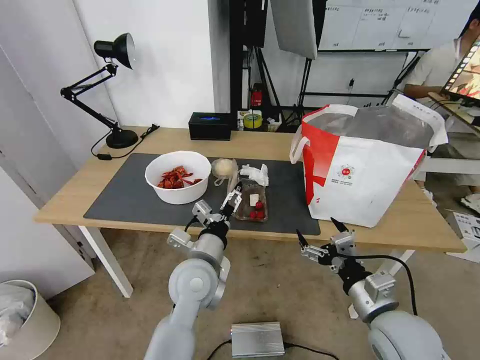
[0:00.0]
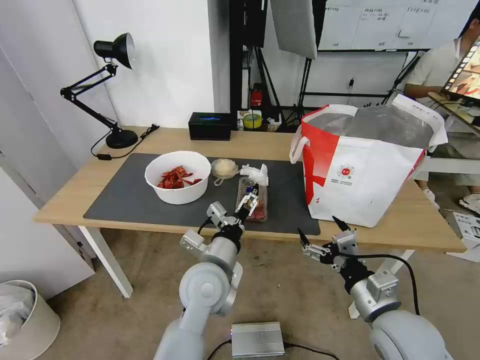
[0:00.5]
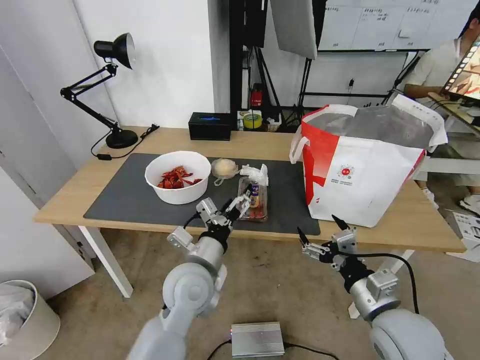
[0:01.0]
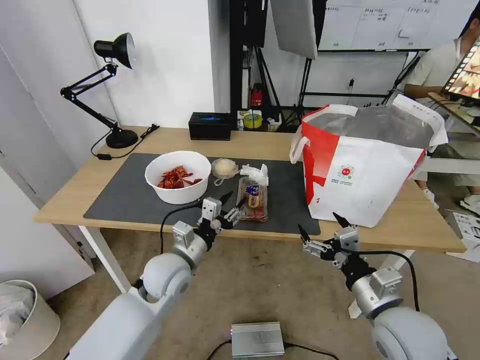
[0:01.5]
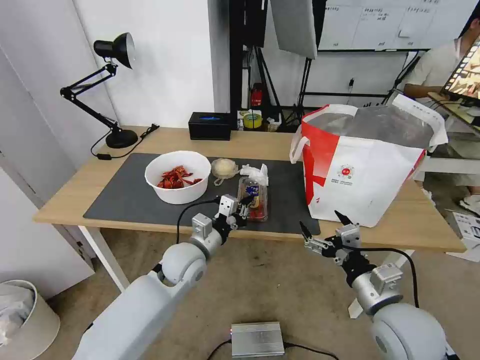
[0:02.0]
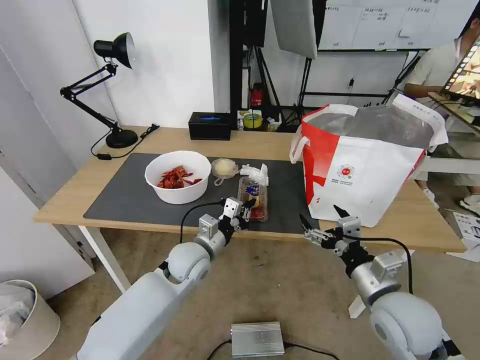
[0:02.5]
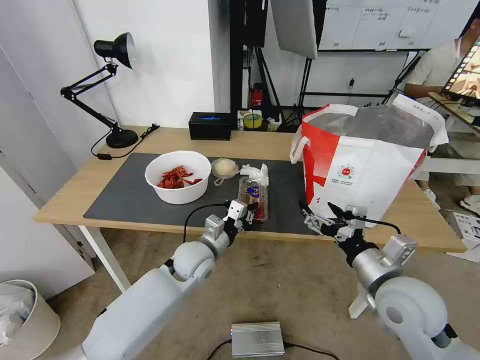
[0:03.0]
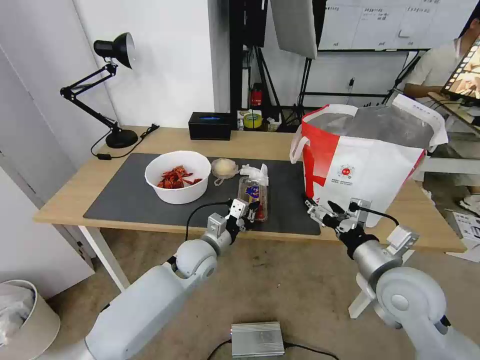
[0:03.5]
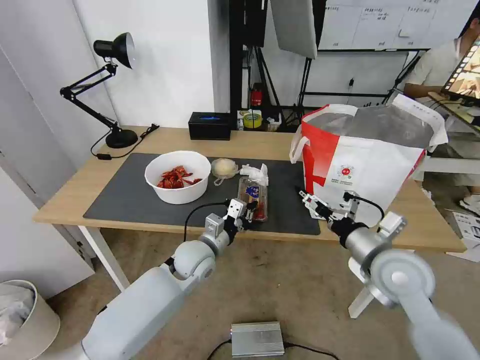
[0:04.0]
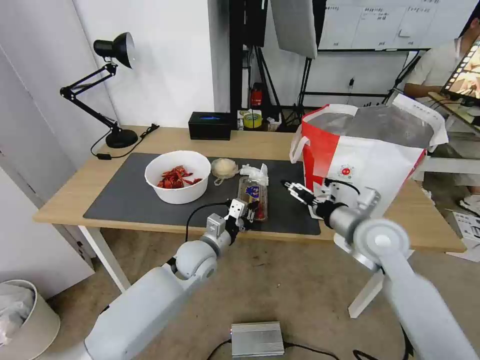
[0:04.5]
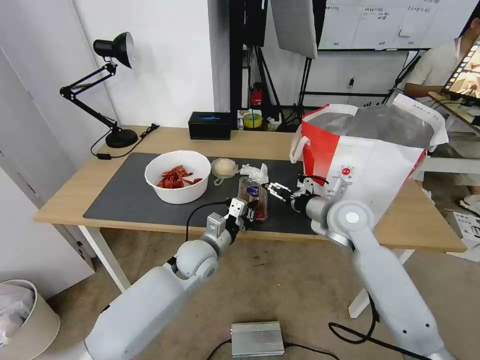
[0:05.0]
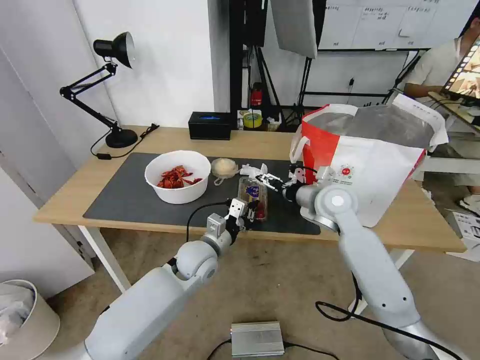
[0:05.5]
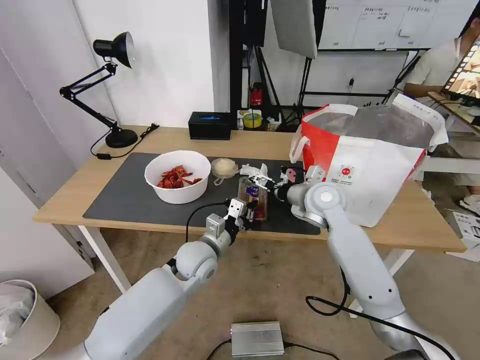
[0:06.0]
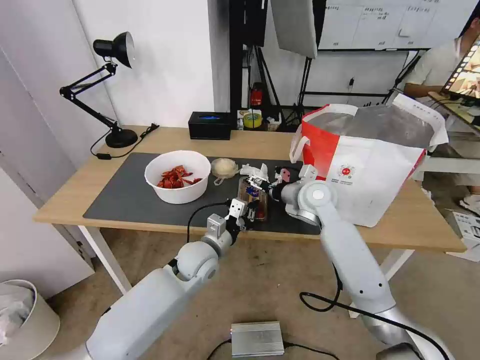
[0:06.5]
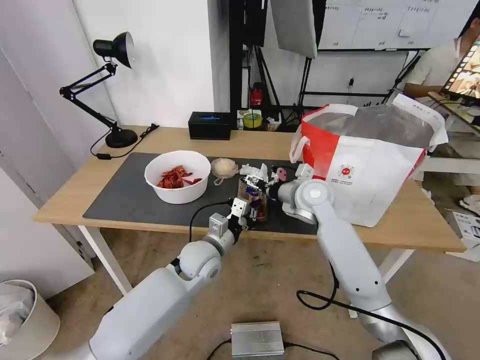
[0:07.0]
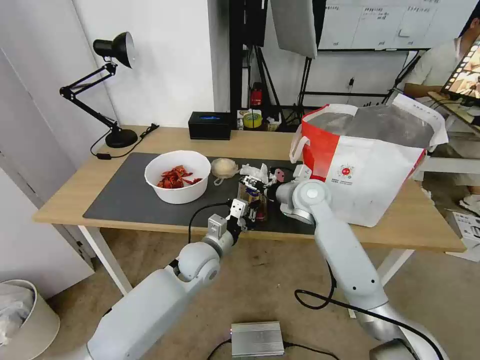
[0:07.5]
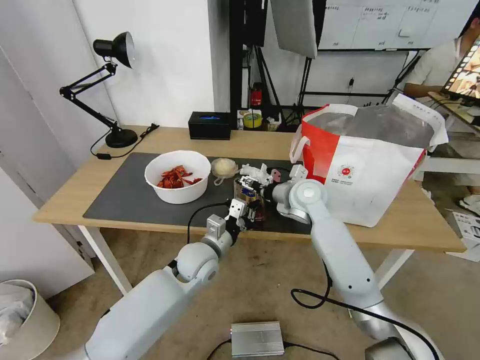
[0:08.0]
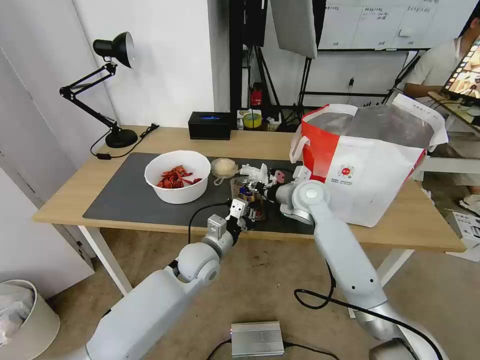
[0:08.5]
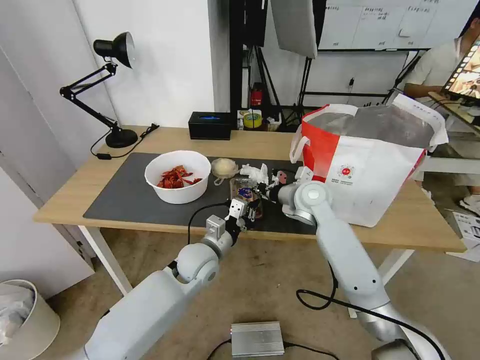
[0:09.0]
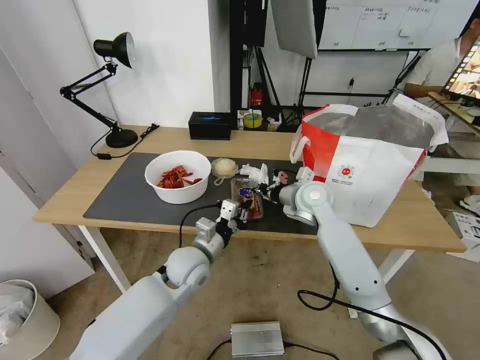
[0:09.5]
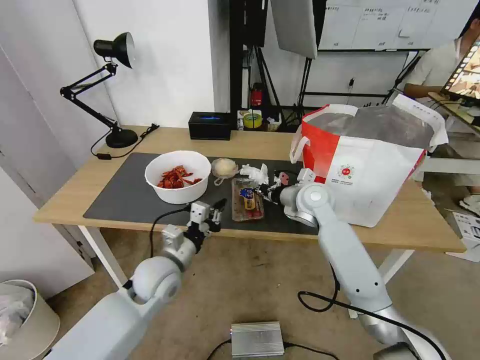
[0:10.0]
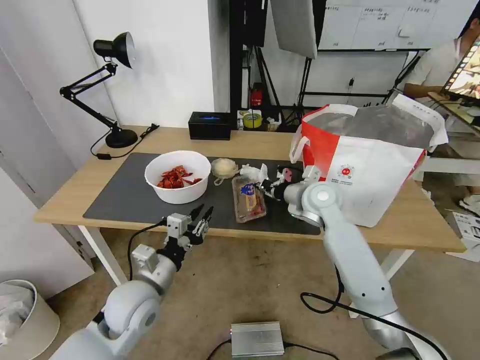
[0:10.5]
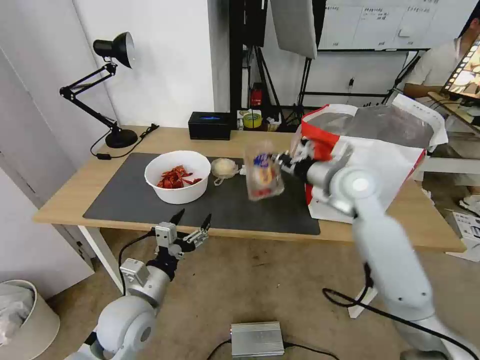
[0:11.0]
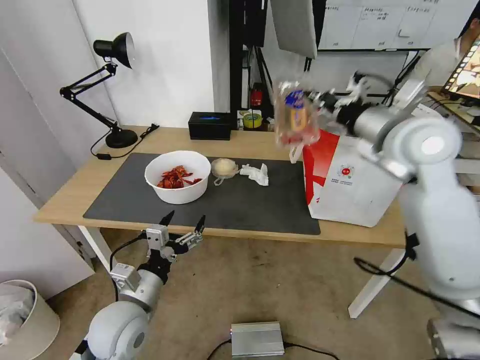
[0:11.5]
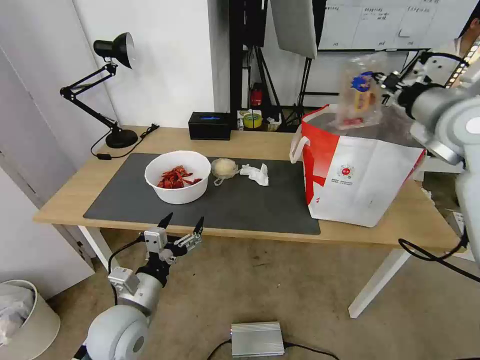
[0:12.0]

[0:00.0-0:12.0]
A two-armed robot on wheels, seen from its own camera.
Task of the whole recording: Pick up the trash from the table and place it into the takeout bag.
0:00.0 to 0:02.0: The left gripper moves forward, some 5 cm, and closes.
0:02.0 to 0:04.0: The right gripper moves forward, roughly 10 cm.
0:04.0 to 0:06.0: The right gripper travels forward and to the left by about 20 cm.
0:06.0 to 0:08.0: The grippers move only a little.
0:08.0 to 0:10.0: The right gripper closes; the left gripper shifts roughly 10 cm to the left and backward.
0:10.0 to 0:12.0: The right gripper is displaced upward and to the right by roughly 30 cm, while the left gripper moves backward, roughly 10 cm, and opens up.

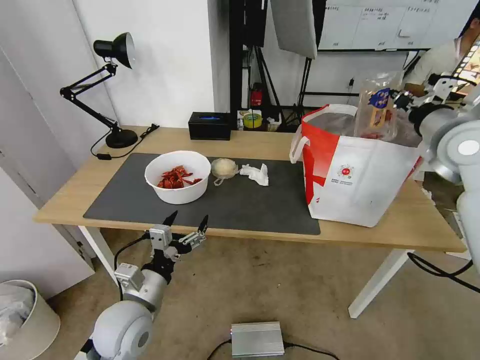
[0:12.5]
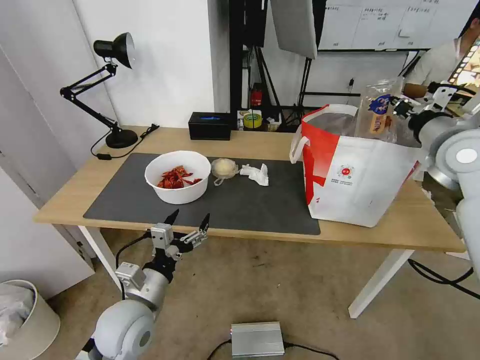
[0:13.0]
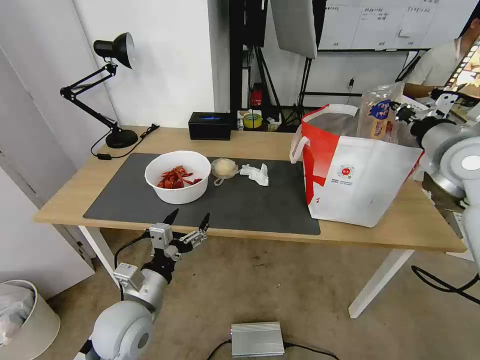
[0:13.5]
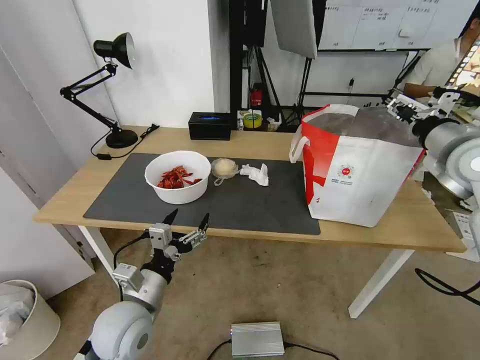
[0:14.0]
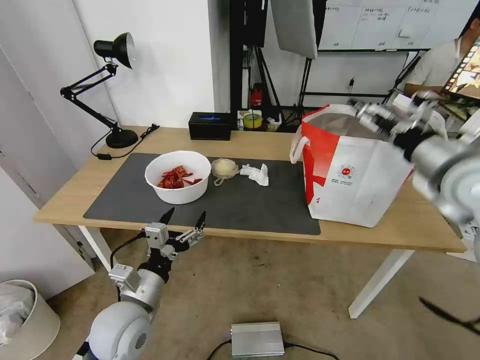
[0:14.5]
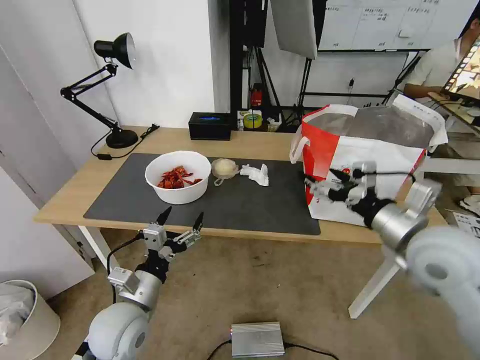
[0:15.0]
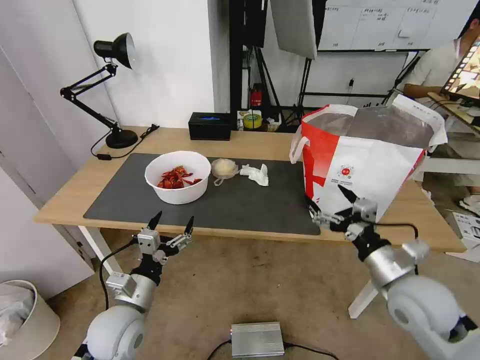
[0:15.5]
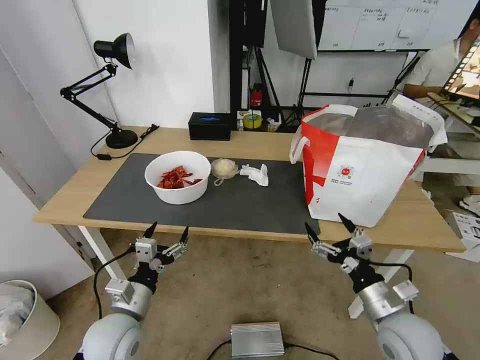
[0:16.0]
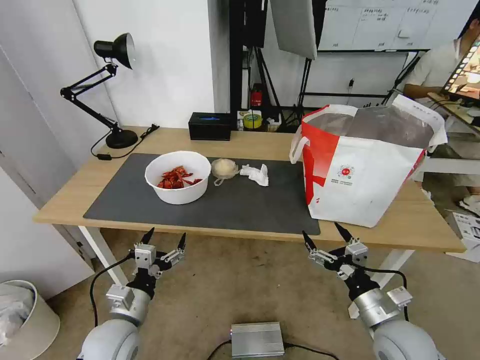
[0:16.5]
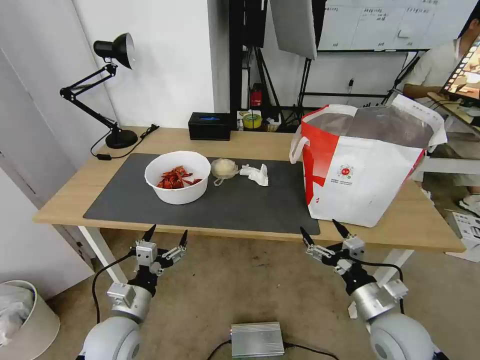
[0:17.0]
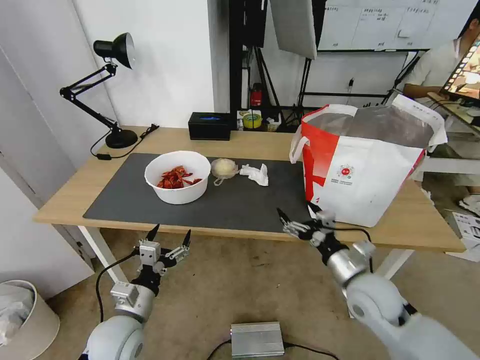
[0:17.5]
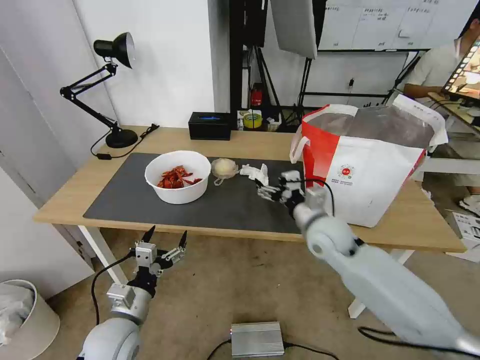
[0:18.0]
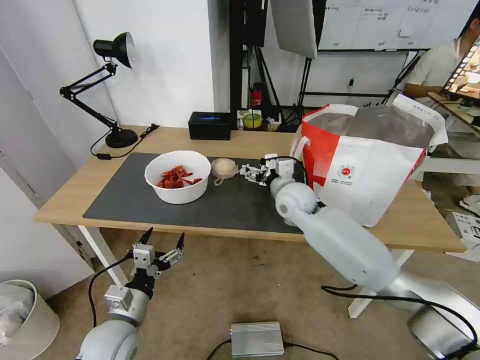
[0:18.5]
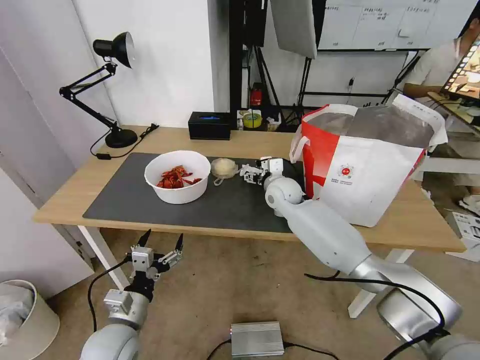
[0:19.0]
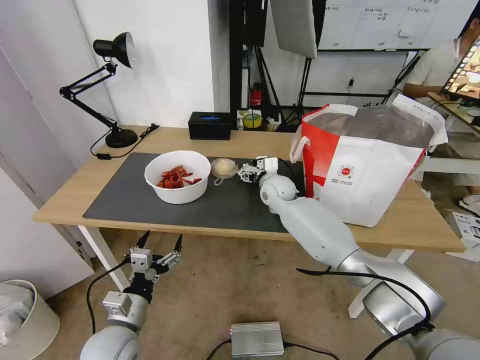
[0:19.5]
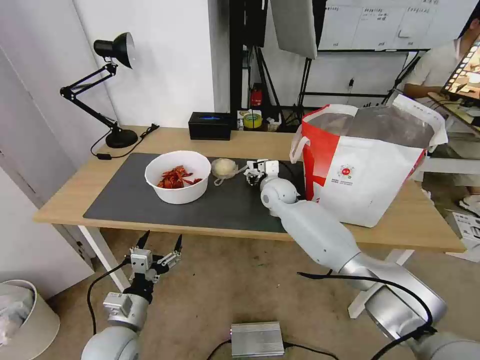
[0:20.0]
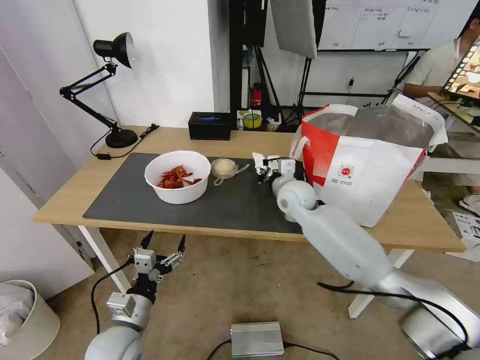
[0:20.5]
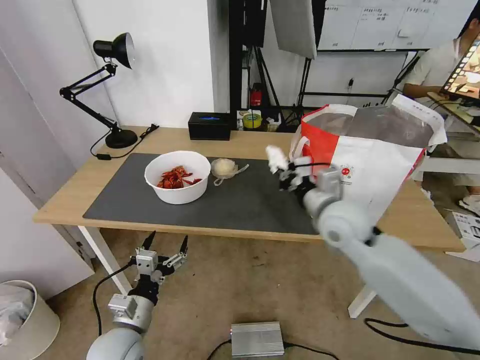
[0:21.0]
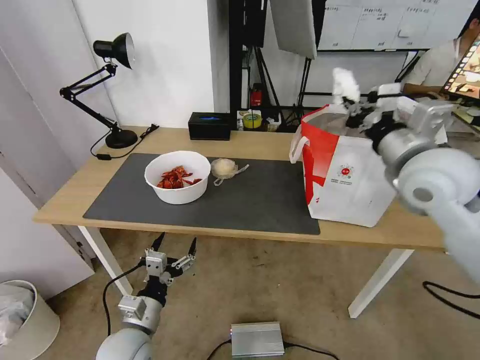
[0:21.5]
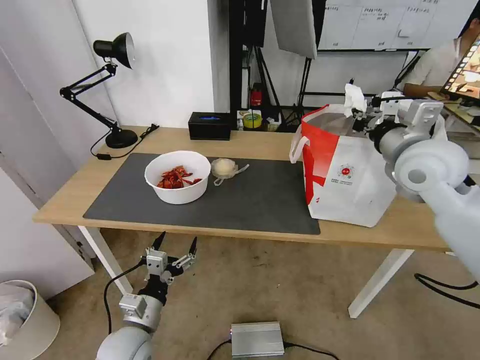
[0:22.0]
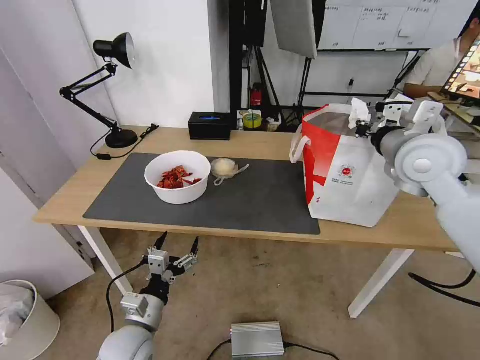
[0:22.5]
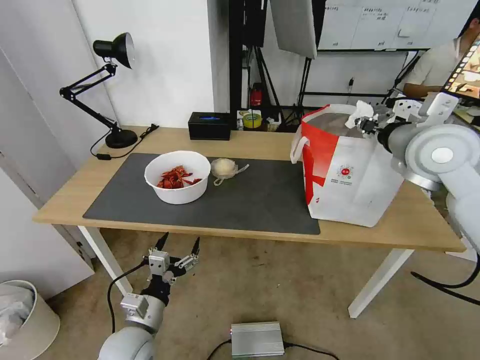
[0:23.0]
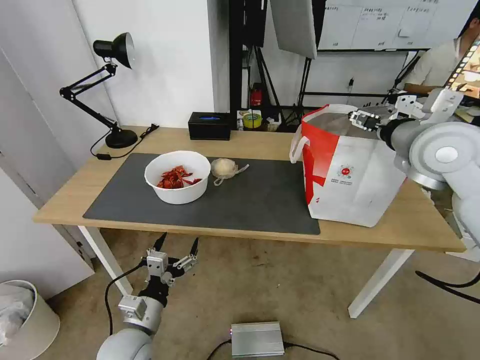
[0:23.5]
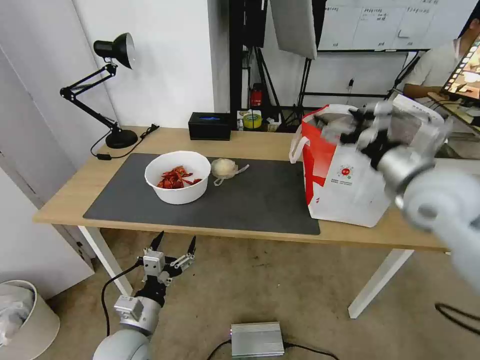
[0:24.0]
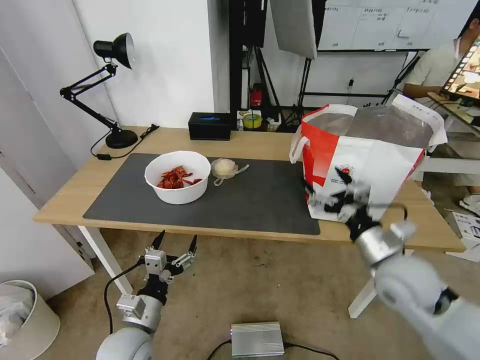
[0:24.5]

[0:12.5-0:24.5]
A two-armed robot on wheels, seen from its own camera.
Task of the whole recording: Pick up the trash from the table and place it into the takeout bag.
0:12.5 to 0:14.5: The right gripper shifts approximately 5 cm backward, and opens.
0:14.5 to 0:16.5: The left gripper is displaced downward by approximately 5 cm. The right gripper goes approximately 30 cm downward and backward.
0:16.5 to 0:18.5: The right gripper is displaced forward and to the left by roughly 35 cm.
0:18.5 to 0:20.5: The right gripper closes its fingers.
0:20.5 to 0:22.5: The right gripper is displaced upward, to the right and backward by roughly 30 cm.
0:22.5 to 0:24.5: The right gripper goes roughly 20 cm downward and backward, and opens up.

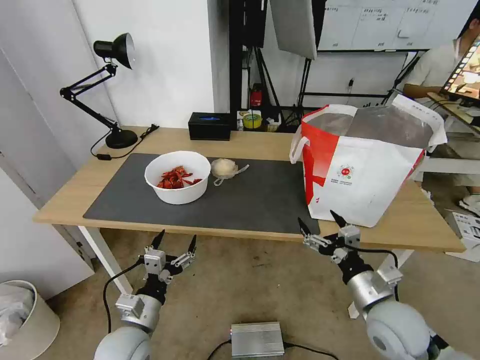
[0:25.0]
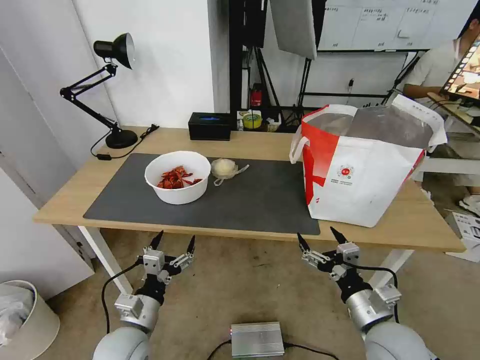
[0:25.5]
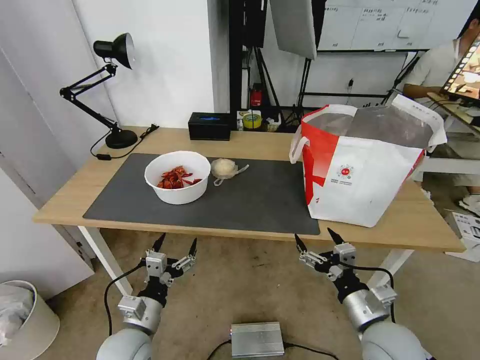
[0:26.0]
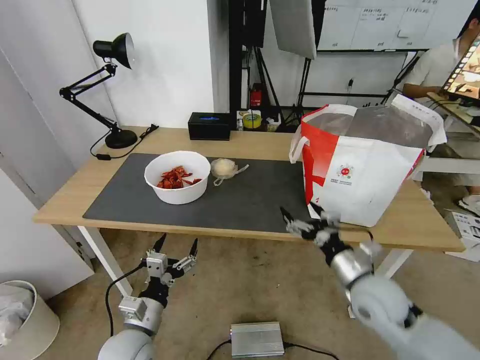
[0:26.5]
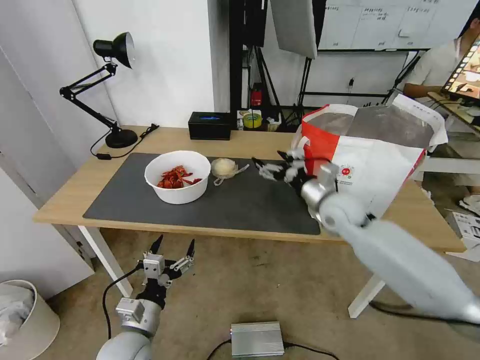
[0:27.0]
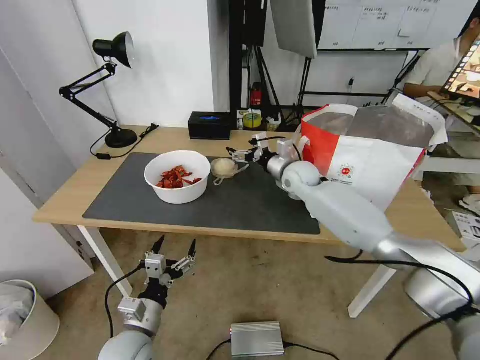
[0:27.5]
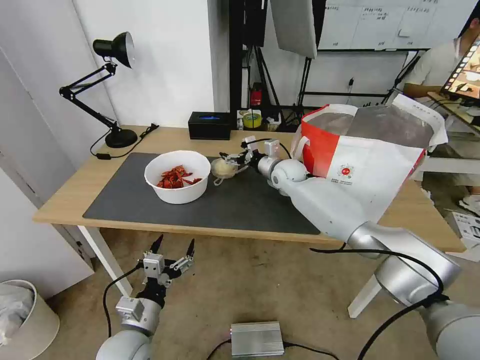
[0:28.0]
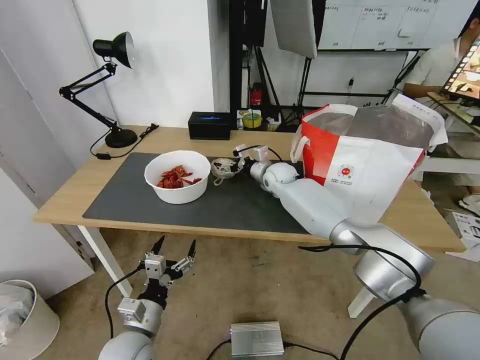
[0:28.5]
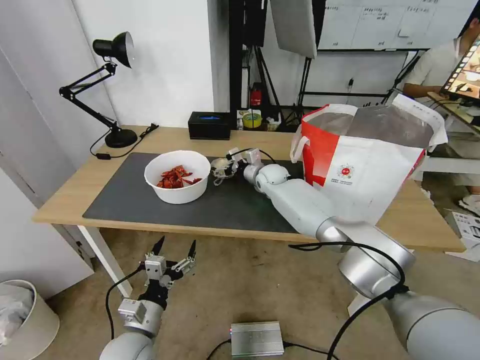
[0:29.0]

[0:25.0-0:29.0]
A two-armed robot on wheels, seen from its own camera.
Task of the whole recording: Pick up the trash from the table and place it into the takeout bag.
0:25.0 to 0:27.0: The right gripper shifts some 20 cm forward.
0:27.0 to 0:29.0: The right gripper shifts some 25 cm forward and to the left.
